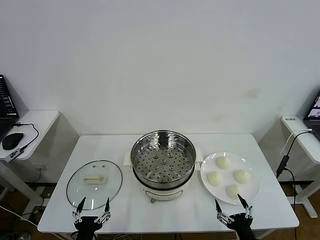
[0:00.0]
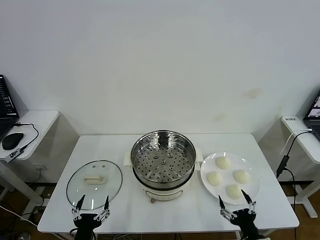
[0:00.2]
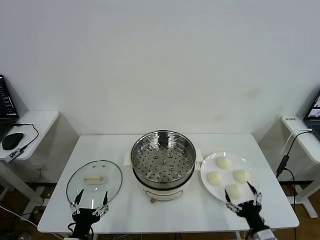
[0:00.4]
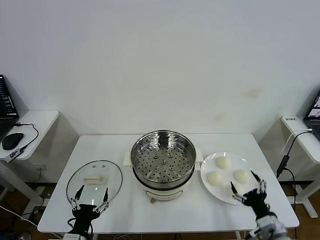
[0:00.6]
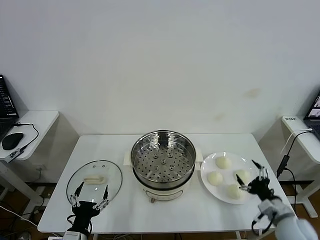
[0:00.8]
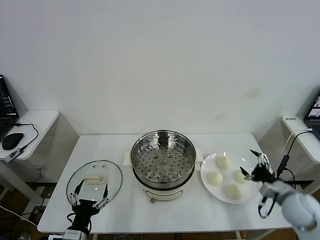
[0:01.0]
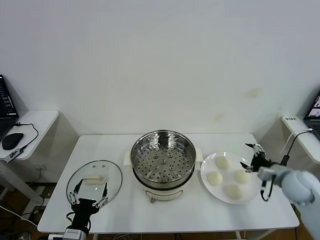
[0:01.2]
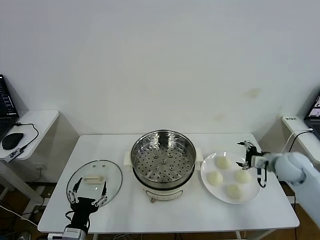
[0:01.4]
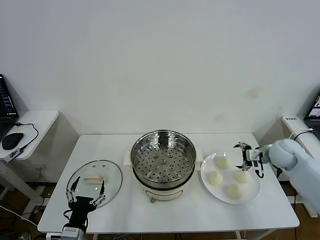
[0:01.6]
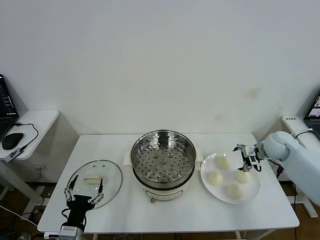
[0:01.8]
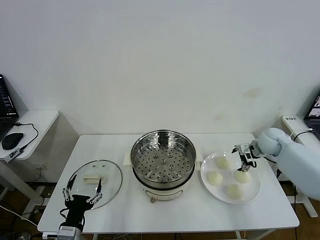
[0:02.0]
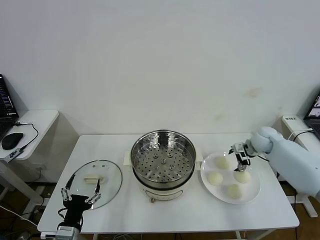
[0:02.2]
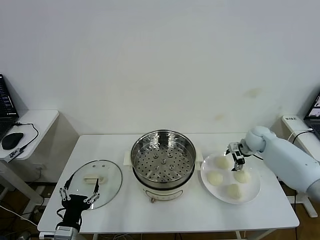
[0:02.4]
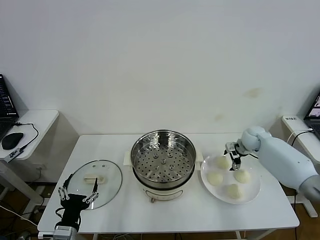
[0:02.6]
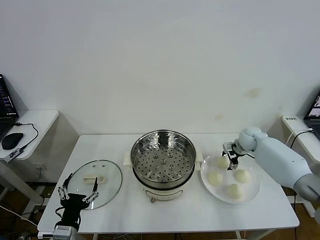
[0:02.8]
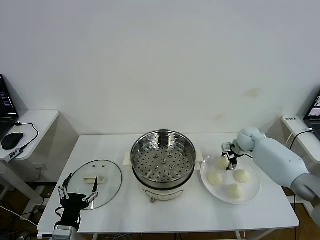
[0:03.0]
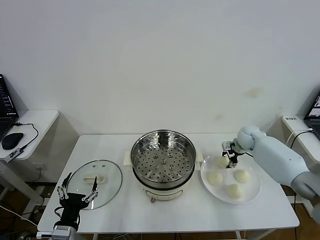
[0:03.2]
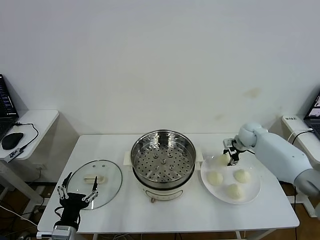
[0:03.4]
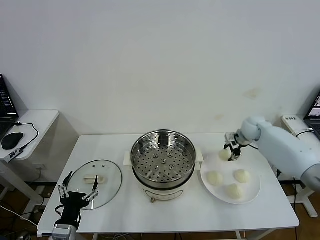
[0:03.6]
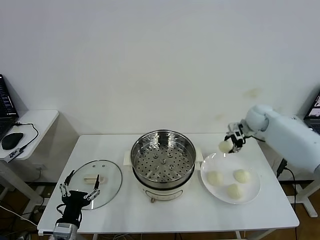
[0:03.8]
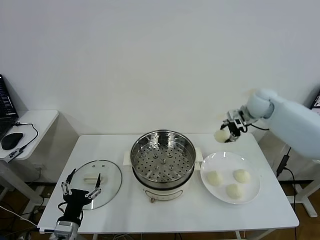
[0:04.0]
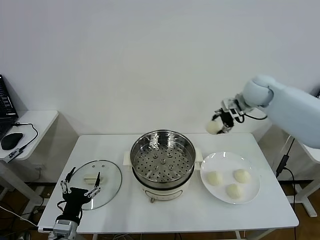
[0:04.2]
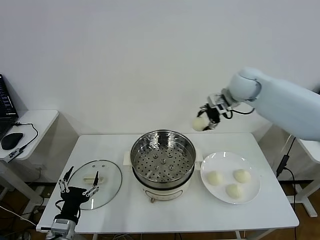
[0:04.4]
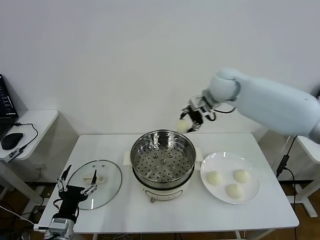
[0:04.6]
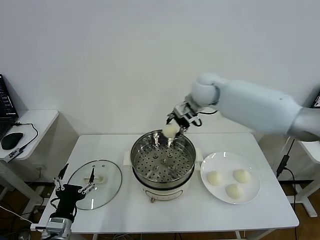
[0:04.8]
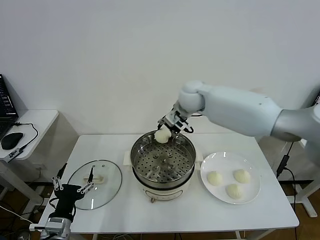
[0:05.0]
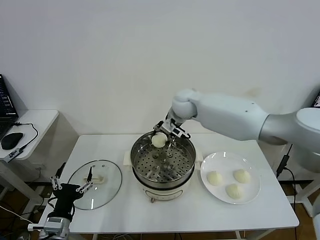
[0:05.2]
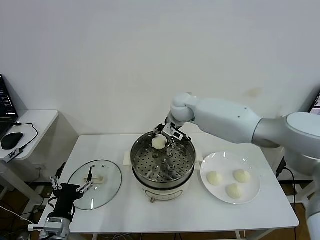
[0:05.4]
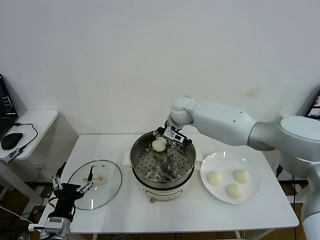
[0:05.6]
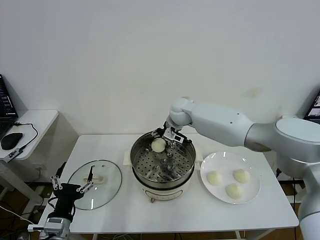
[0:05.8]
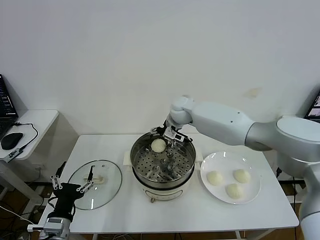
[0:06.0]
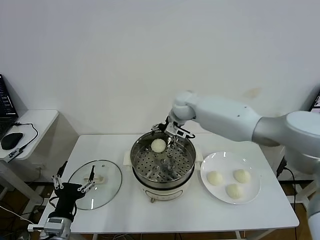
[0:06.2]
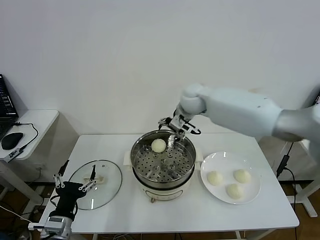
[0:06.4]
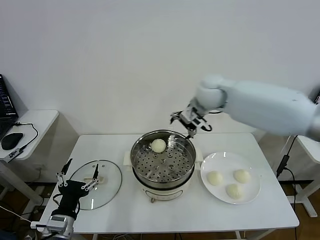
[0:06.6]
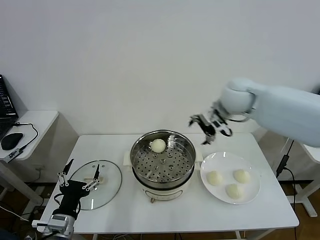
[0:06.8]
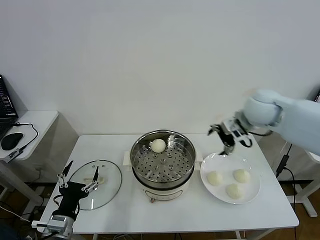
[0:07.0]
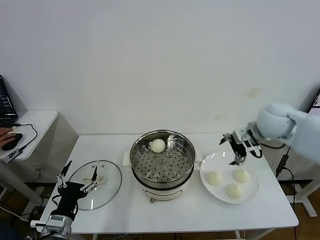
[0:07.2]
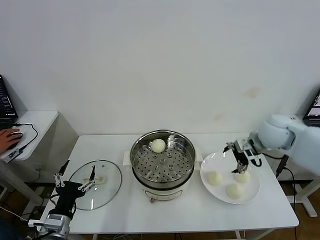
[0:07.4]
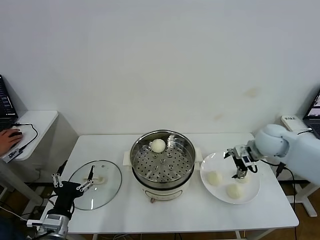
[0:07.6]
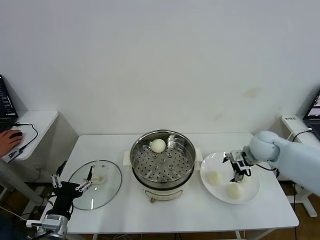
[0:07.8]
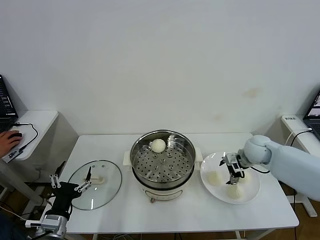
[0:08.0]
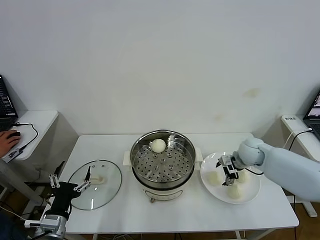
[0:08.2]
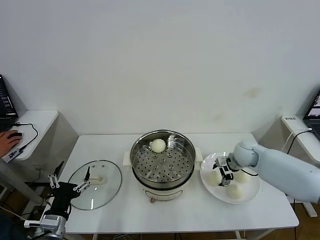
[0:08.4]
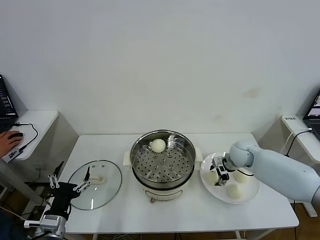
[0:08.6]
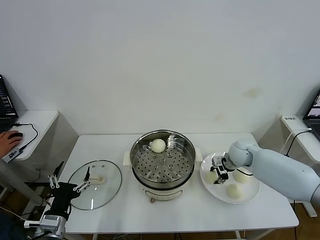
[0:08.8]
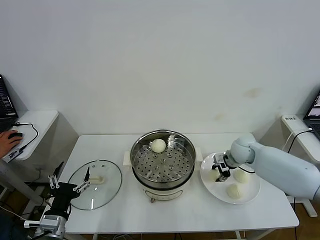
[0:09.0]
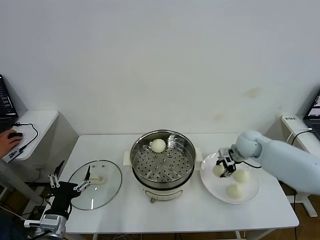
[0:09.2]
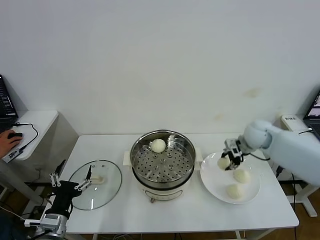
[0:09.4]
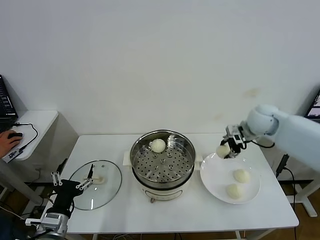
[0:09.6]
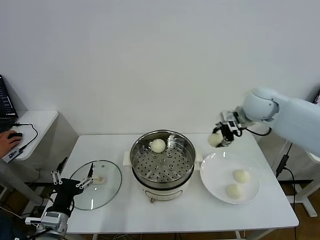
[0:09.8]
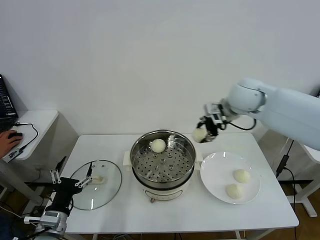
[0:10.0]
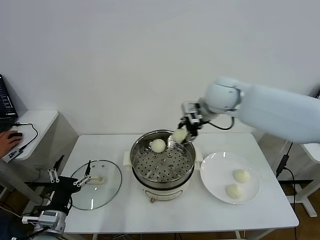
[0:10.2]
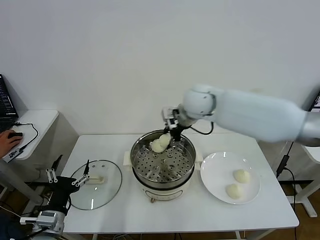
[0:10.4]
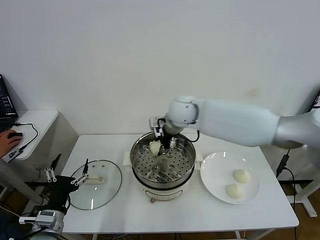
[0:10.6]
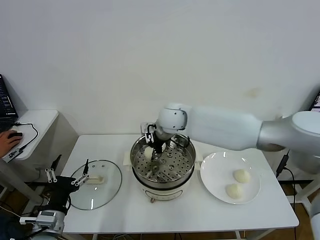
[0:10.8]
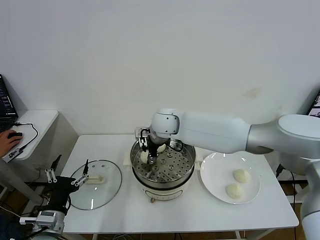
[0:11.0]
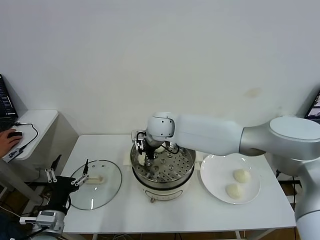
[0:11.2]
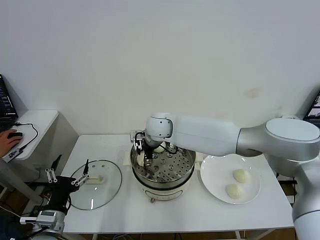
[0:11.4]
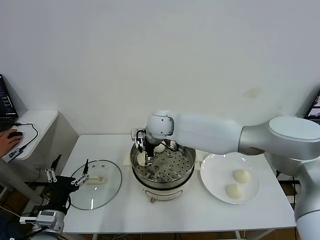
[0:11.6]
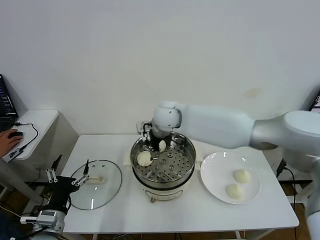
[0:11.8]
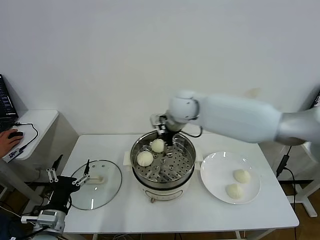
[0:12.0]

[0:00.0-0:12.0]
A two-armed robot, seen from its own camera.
Task of the whole recording: take steamed baozi put them in steamer then cover it.
Step, 0:00.0 to 0:03.0: Grasp the baozi in the plate with right gripper.
Step, 0:03.4 to 0:05.8: Place the baozi on the steamer with right gripper.
Step, 0:06.0 to 0:08.6: Grasp the baozi in the plate with right gripper.
Step, 0:08.8 to 0:11.4: Place the baozi on the steamer with right gripper.
0:01.6 to 0:03.0: The right gripper is displaced forward, downward and to the left by some 15 cm, and closes up.
0:03.0 to 0:04.4: The right gripper moves upward and to the left, roughly 30 cm.
0:04.4 to 0:06.0: The right gripper goes about 20 cm to the left and downward, and opens.
0:06.0 to 0:07.6: The right gripper moves to the right and backward, approximately 30 cm.
0:07.6 to 0:09.0: The right gripper moves downward, approximately 10 cm, and closes its fingers.
0:09.0 to 0:10.4: The right gripper is displaced upward and to the left by about 30 cm.
0:10.4 to 0:12.0: The right gripper goes to the left and returns, about 10 cm each way, and opens.

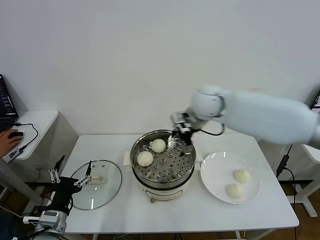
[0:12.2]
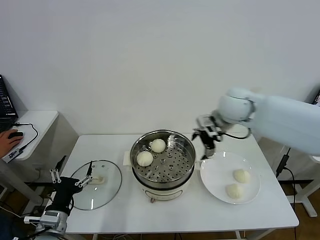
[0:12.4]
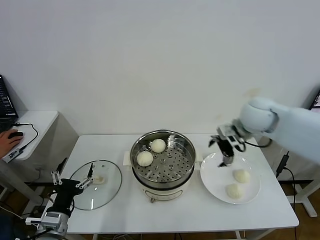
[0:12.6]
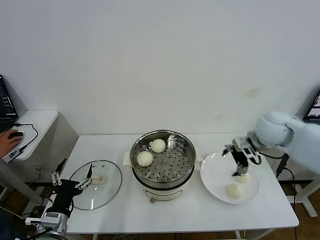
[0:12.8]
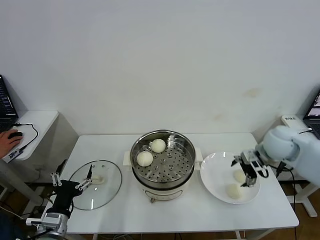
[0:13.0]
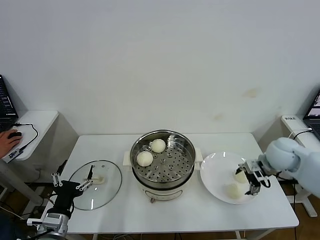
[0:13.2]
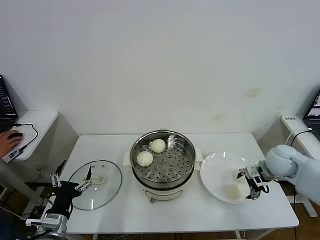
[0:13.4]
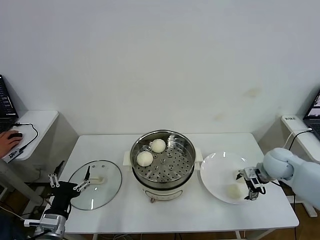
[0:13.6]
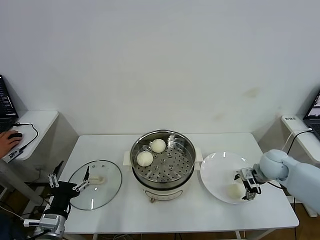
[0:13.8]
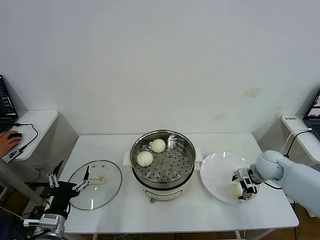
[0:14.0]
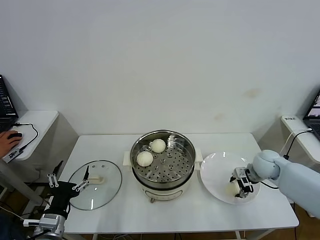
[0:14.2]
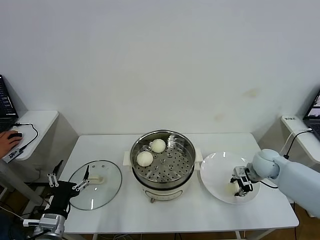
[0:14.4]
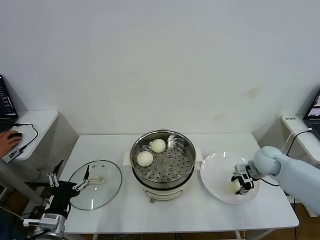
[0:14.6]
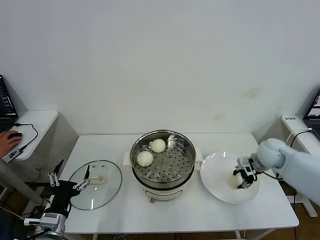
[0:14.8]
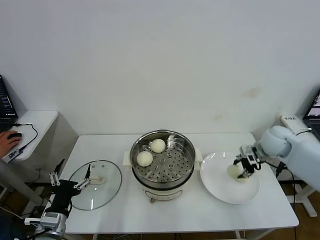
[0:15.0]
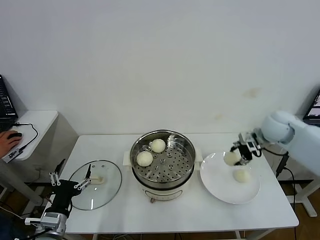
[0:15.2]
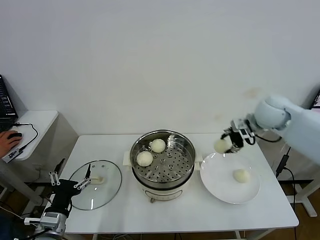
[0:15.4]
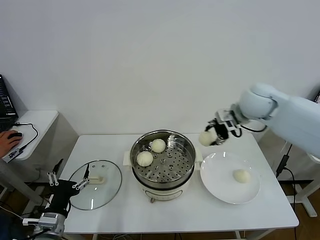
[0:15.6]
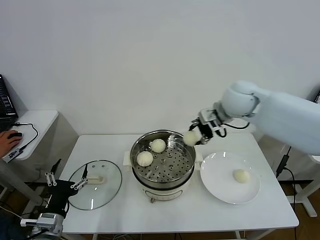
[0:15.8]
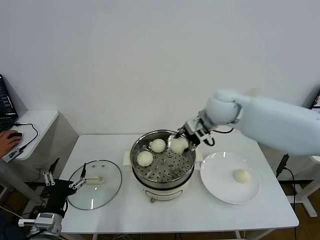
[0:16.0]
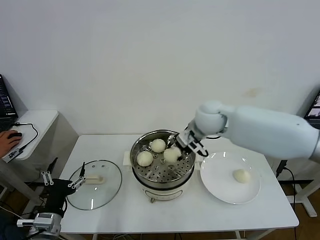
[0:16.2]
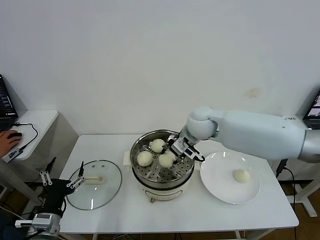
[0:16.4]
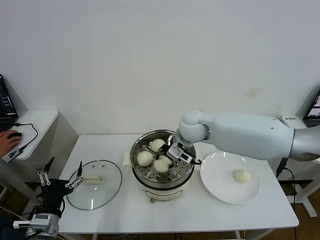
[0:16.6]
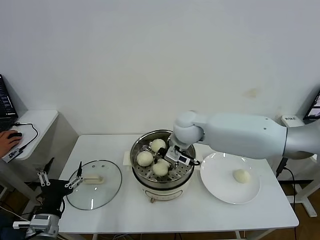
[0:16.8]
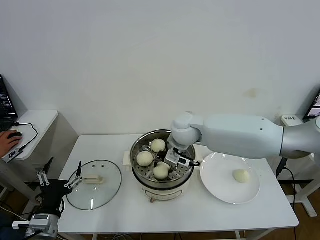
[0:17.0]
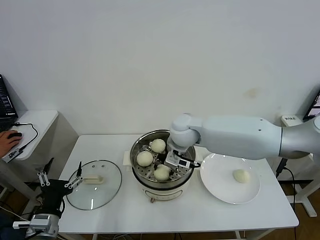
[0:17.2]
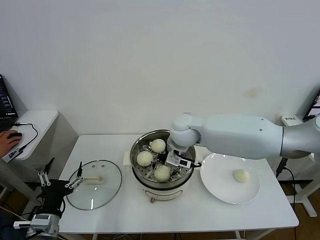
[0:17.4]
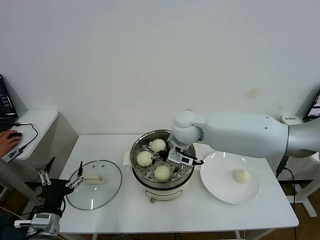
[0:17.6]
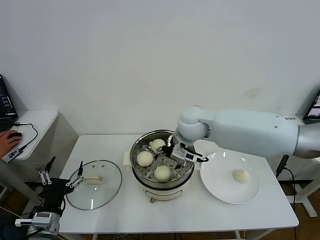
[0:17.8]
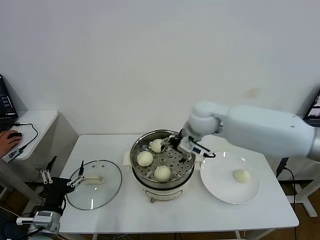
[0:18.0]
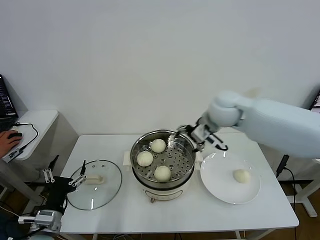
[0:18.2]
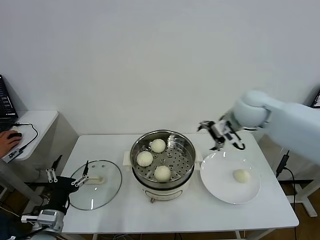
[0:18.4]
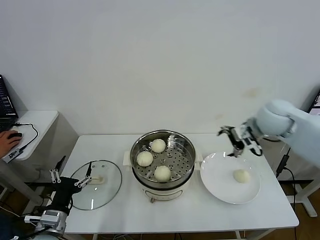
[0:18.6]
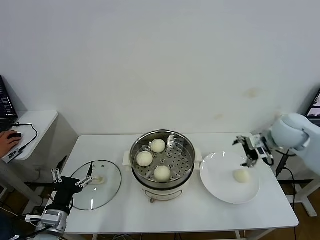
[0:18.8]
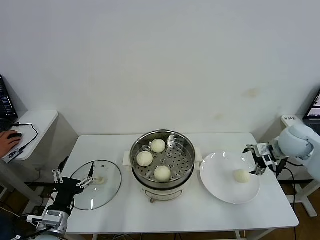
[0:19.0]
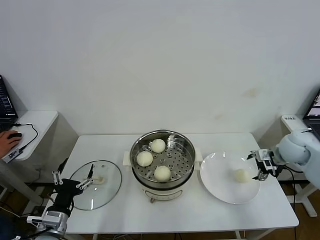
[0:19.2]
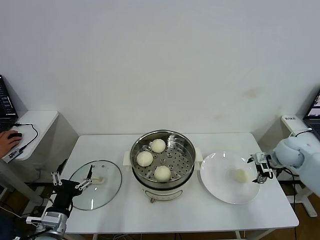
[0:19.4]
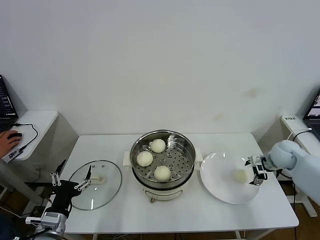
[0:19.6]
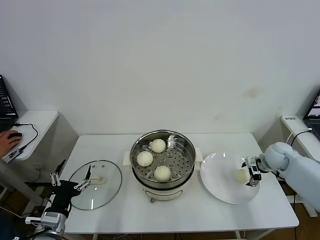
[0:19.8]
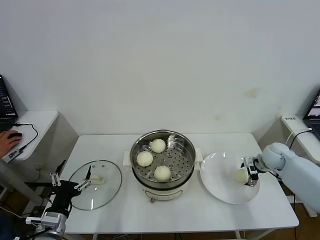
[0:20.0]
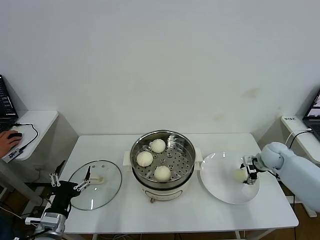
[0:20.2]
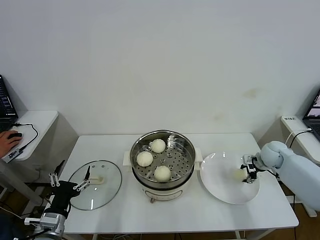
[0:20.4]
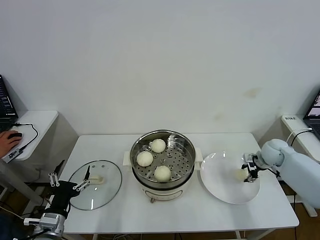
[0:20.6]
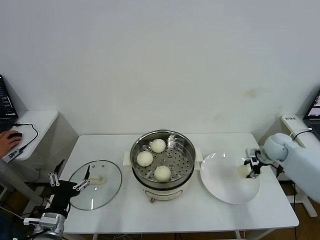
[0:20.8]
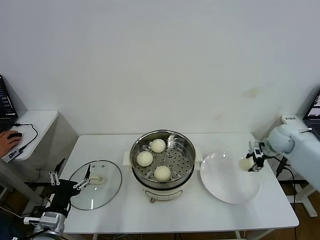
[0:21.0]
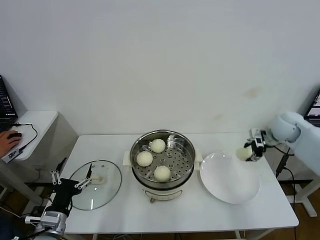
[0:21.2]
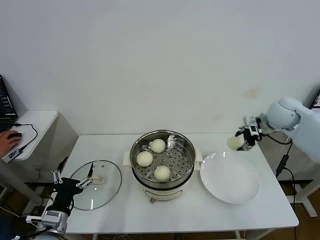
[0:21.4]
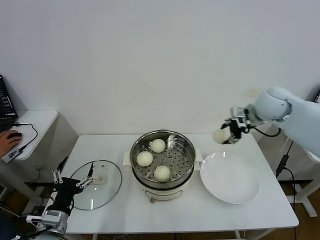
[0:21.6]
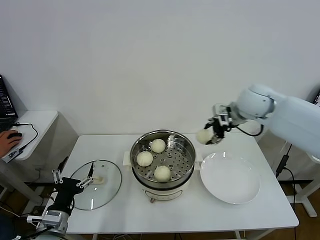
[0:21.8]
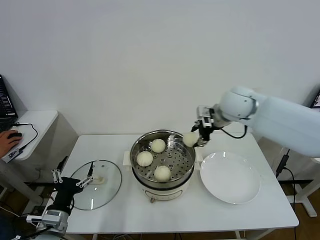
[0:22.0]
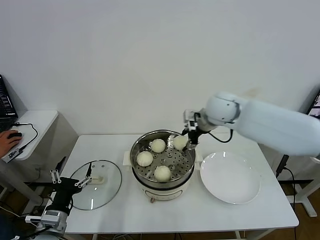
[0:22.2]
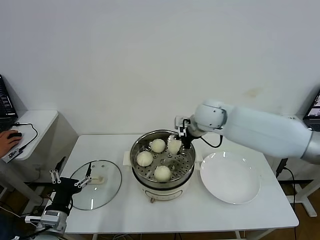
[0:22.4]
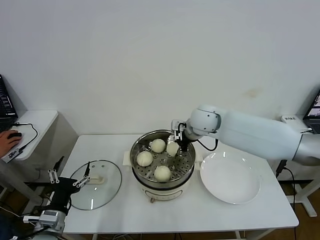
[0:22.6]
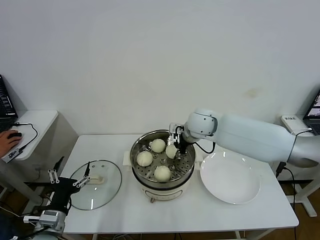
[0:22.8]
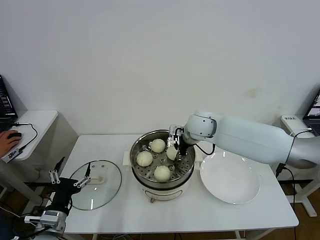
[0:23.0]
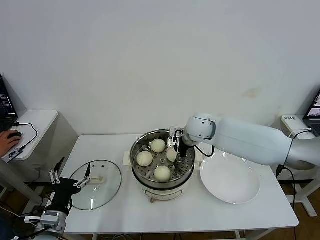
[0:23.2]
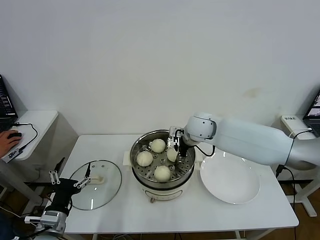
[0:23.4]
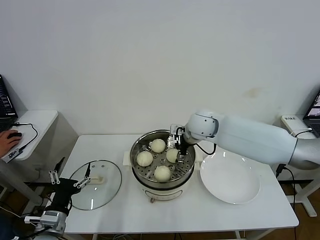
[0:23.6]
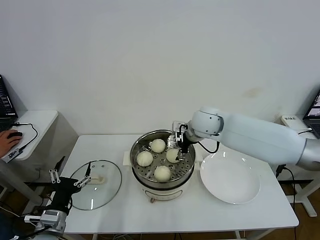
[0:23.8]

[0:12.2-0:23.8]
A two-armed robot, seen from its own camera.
Task of the whole recording: take steamed baozi put them in steamer then cover it.
Step, 0:12.2 to 0:14.2: Grasp the baozi in the plate with right gripper.
Step, 0:14.6 to 0:17.4: Place the baozi on the steamer with right gripper.
Step, 0:17.6 to 0:20.4: Grasp the baozi in the plate with right gripper.
Step, 0:20.6 to 0:23.4: Place the baozi on the steamer with right gripper.
0:12.2 to 0:13.6: The right gripper goes approximately 30 cm to the right and downward.
0:13.6 to 0:15.0: The right gripper goes approximately 5 cm upward and forward, and closes its fingers.
0:15.0 to 0:16.6: The right gripper moves to the left, some 30 cm.
0:16.6 to 0:18.0: The right gripper opens its fingers.
0:18.0 to 0:19.4: The right gripper is displaced to the right by some 30 cm.
0:19.4 to 0:21.0: The right gripper closes its fingers.
0:21.0 to 0:22.4: The right gripper travels to the left by approximately 30 cm.
0:22.4 to 0:23.8: The right gripper opens its fingers.
